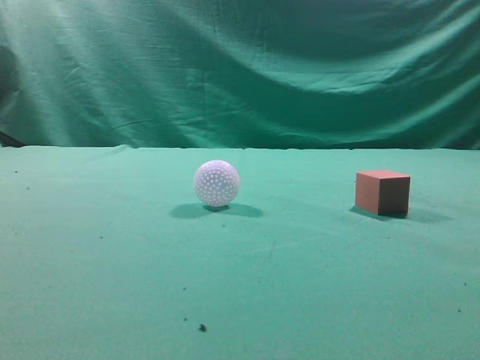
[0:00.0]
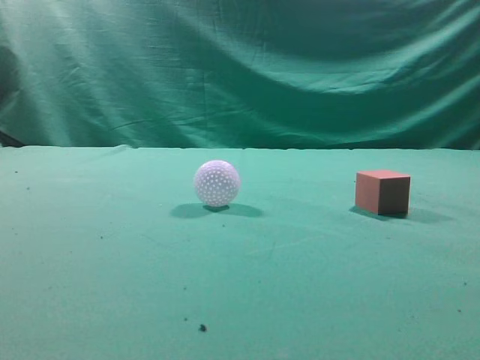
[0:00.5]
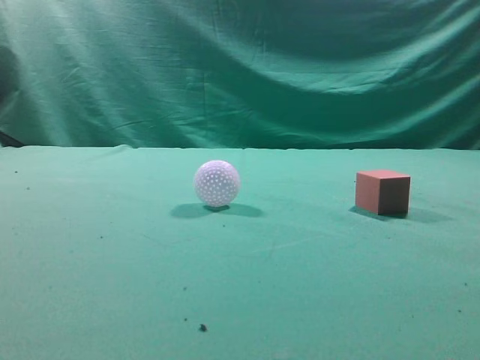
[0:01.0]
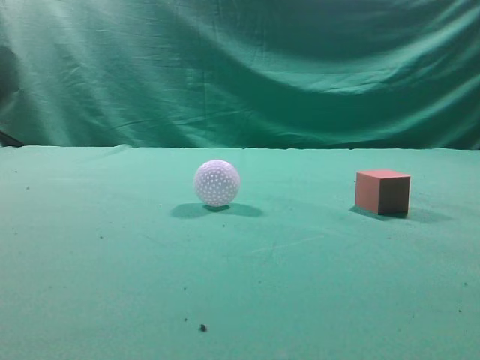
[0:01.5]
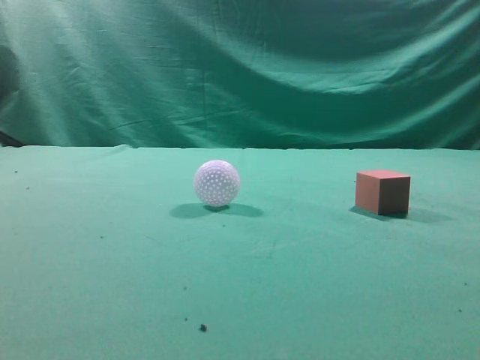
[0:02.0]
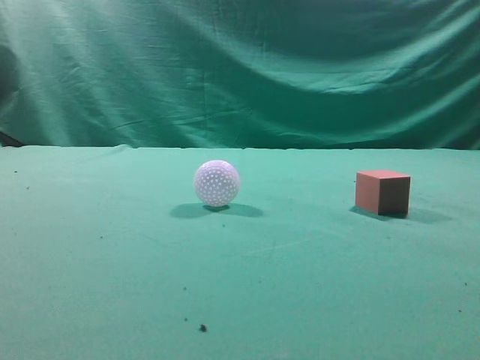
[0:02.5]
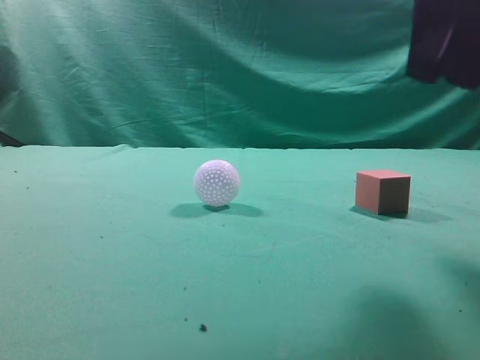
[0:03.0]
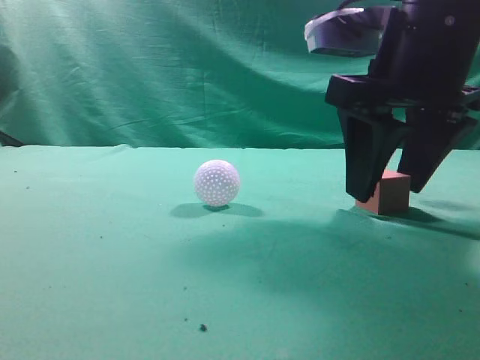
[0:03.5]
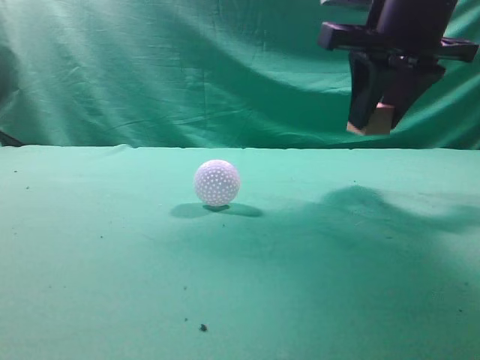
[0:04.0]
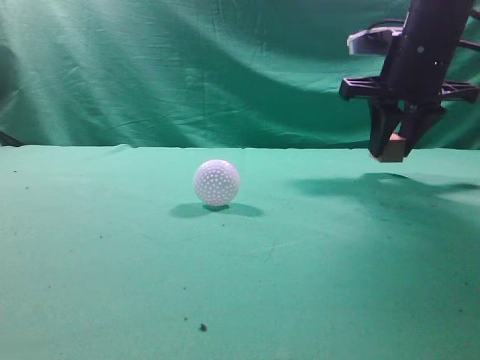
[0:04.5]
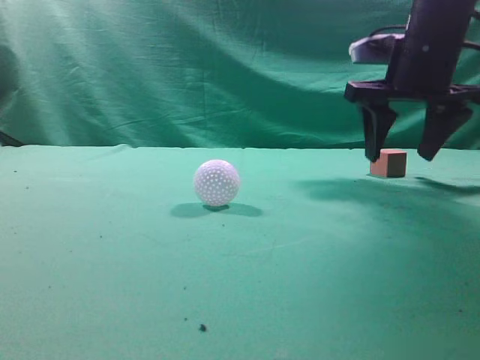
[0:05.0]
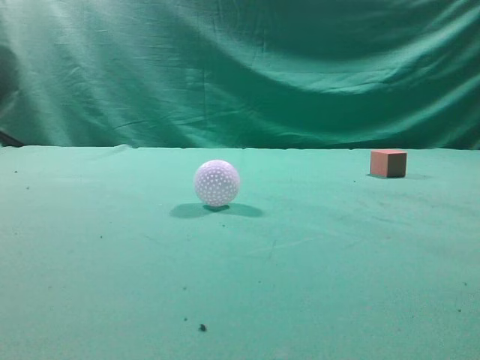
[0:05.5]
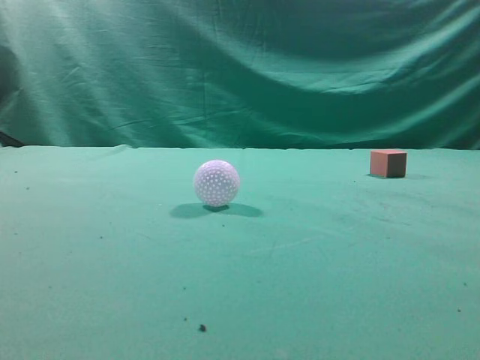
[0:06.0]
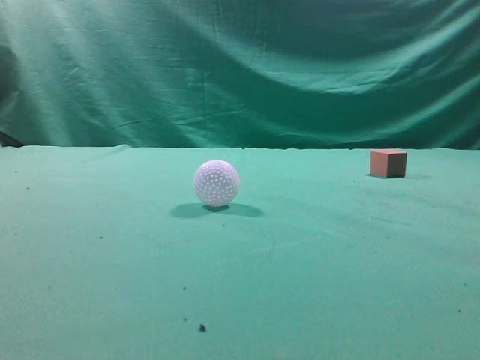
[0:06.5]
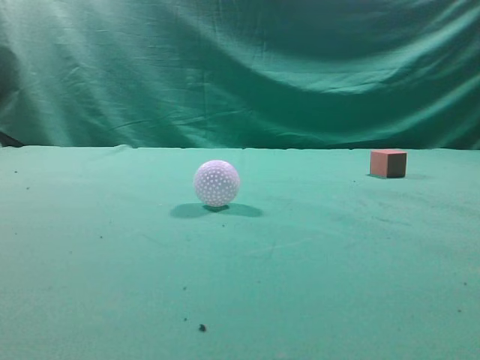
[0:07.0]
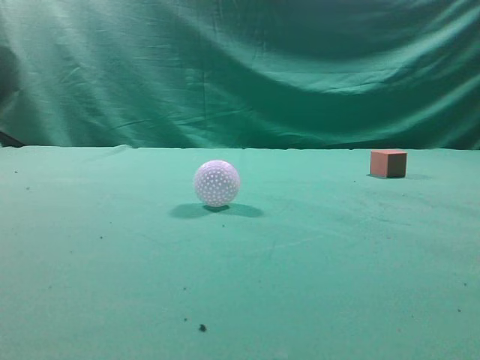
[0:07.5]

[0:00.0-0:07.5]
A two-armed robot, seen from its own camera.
Task of the whole recording: pick up the cube block and place it in another position on the table.
Step, 0:00.0 to 0:03.5: Pick up the small cube.
Step, 0:04.0 to 0:04.5: Place the small cube on the ahead of the table.
0:02.0 to 0:04.0: The right gripper is displaced forward and to the left by roughly 30 cm, and opens up.
0:04.0 to 0:05.5: The right gripper heads upward, backward and to the right, covering roughly 15 cm, and closes its fingers.
